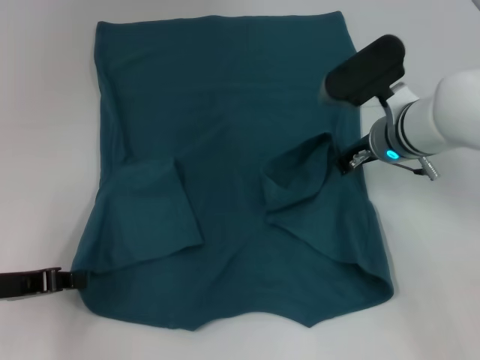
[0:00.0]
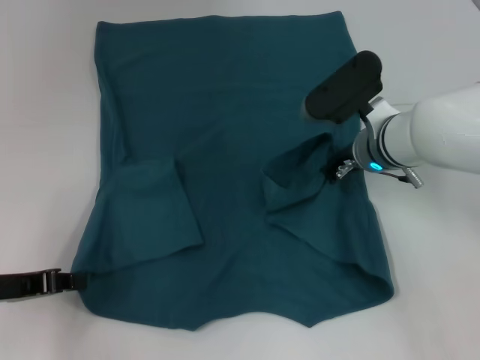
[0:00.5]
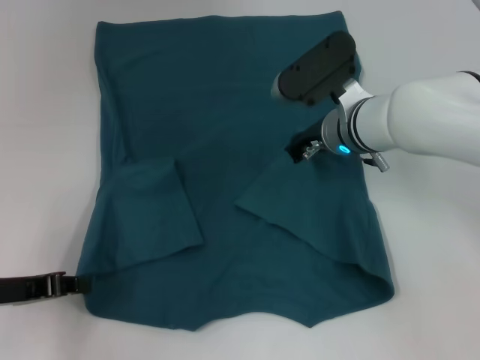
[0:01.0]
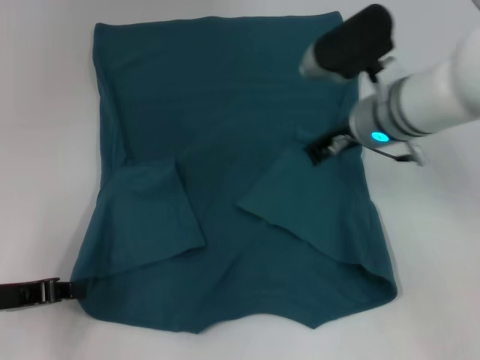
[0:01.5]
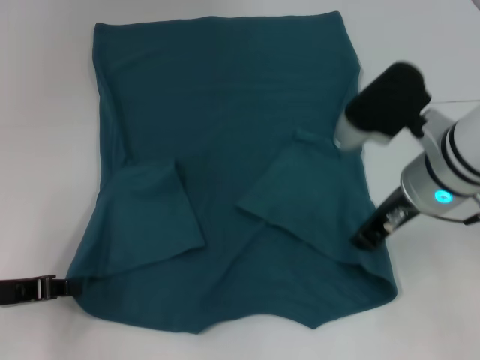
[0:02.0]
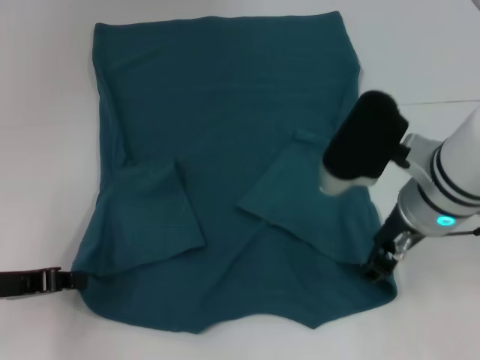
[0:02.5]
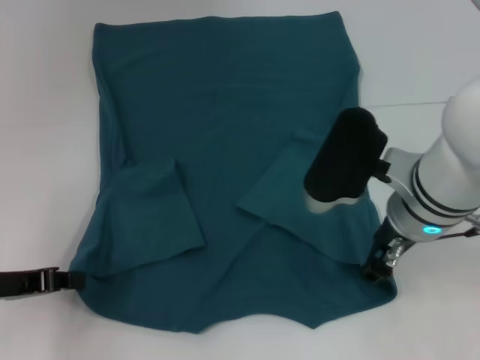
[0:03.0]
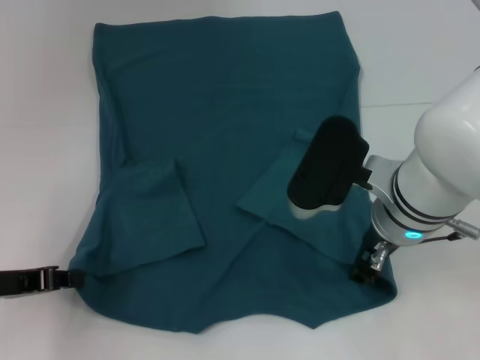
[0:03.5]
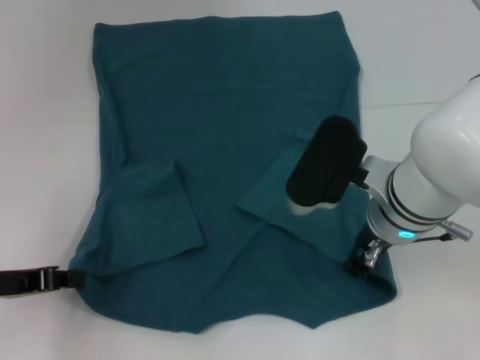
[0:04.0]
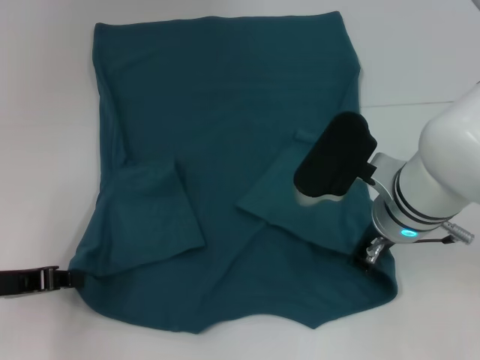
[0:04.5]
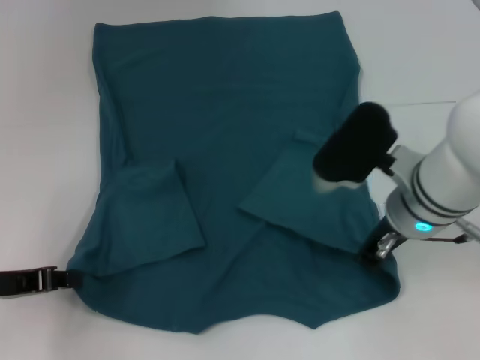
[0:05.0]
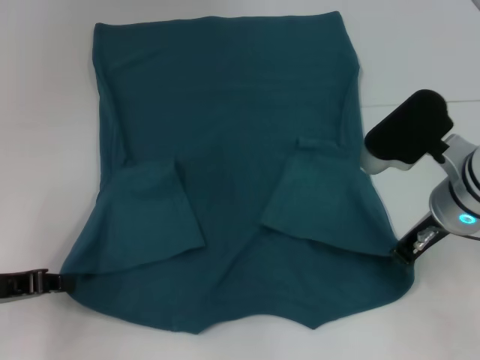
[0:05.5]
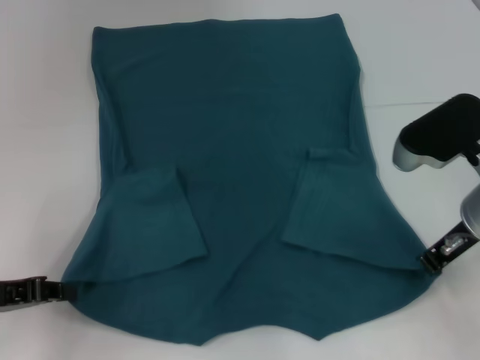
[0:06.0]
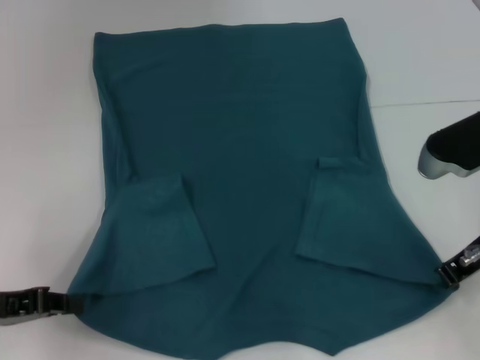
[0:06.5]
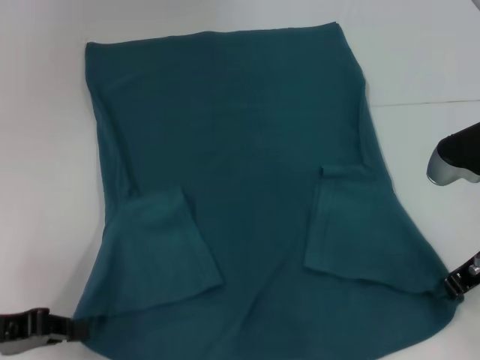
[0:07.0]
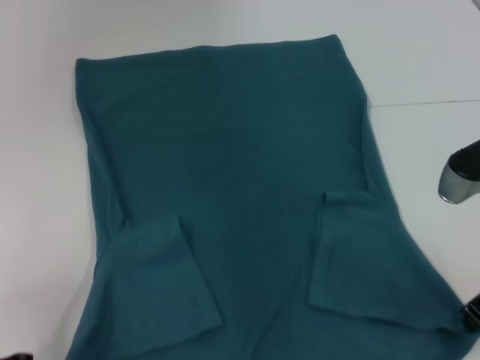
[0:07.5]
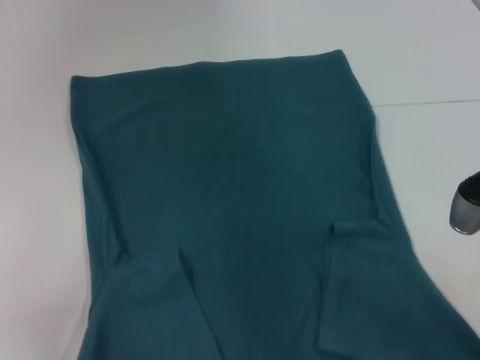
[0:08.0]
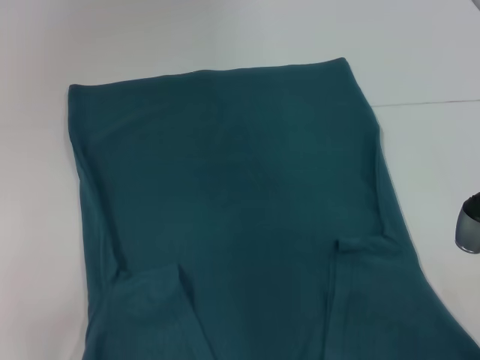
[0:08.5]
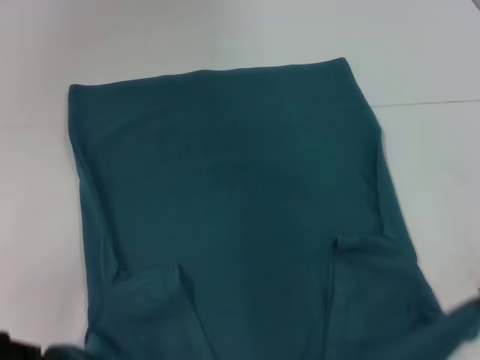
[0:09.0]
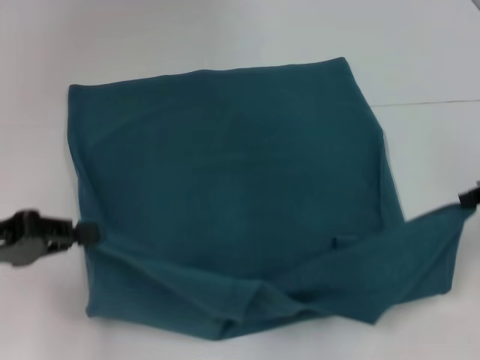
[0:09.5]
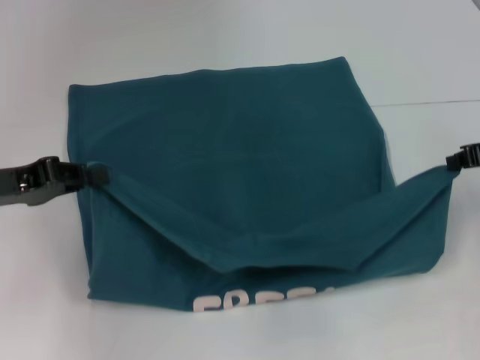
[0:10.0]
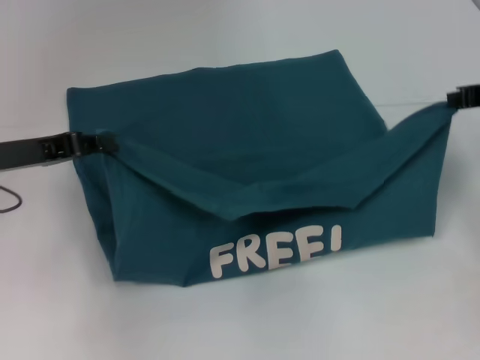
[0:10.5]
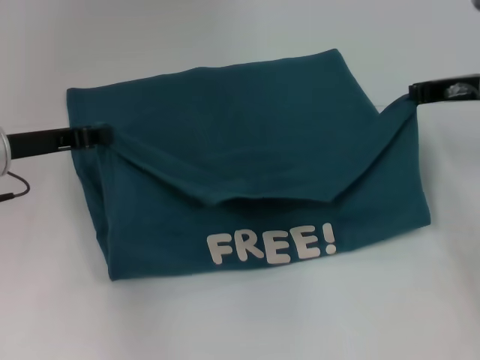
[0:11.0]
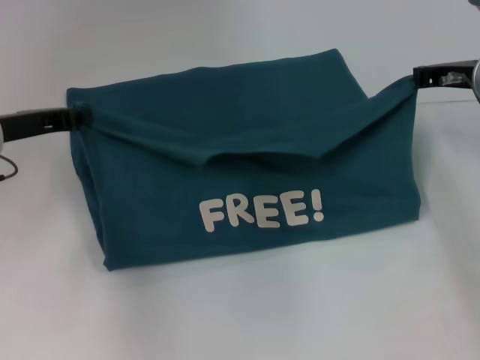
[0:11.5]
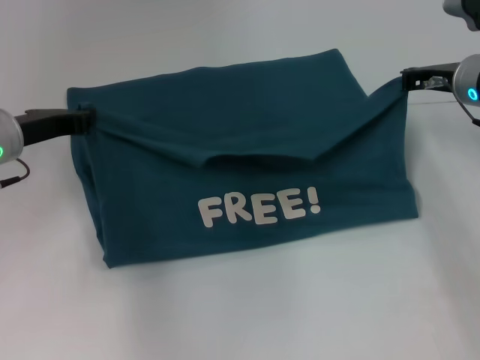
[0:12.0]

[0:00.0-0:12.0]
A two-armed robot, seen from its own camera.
Step, 0:02.0 to 0:04.5: Grab the bottom right corner with your right hand.
0:00.0 to 0:02.0: The right gripper travels backward by roughly 10 cm.
0:02.0 to 0:04.0: The right gripper ends up approximately 5 cm from where it was, and opens.
0:04.0 to 0:06.0: The right gripper goes some 10 cm to the right, and closes its fingers.
0:06.0 to 0:08.0: The grippers both shift backward by roughly 5 cm.
0:08.0 to 0:10.0: The left gripper shifts some 15 cm forward and upward. The right gripper goes roughly 10 cm forward and to the right.
0:10.0 to 0:12.0: The left gripper moves forward, approximately 10 cm, while the right gripper travels forward and to the left by roughly 10 cm.

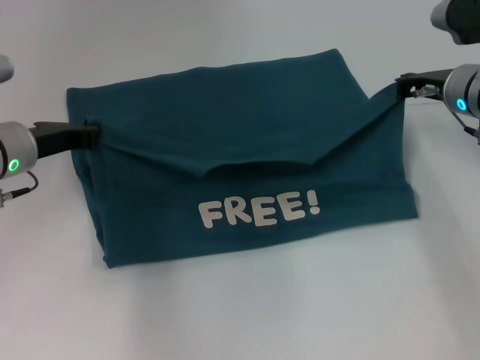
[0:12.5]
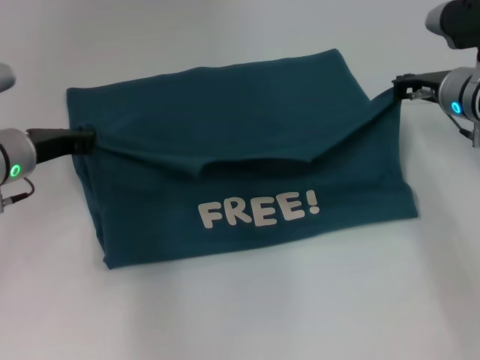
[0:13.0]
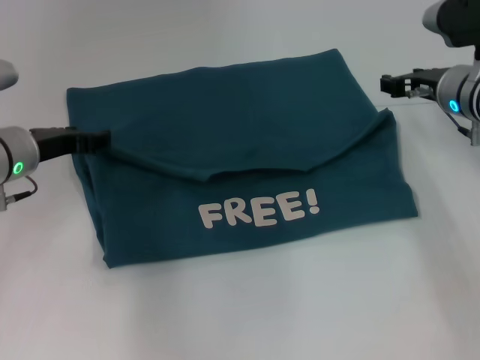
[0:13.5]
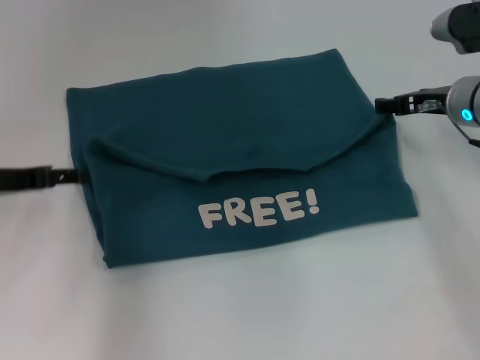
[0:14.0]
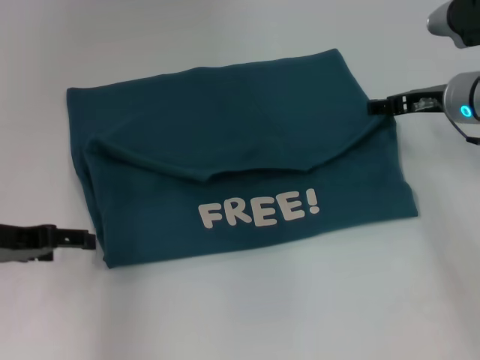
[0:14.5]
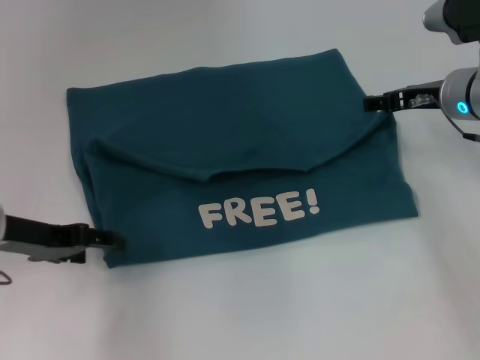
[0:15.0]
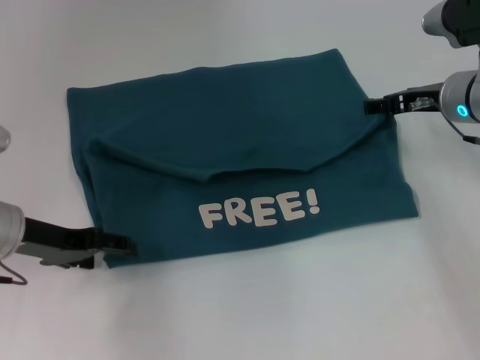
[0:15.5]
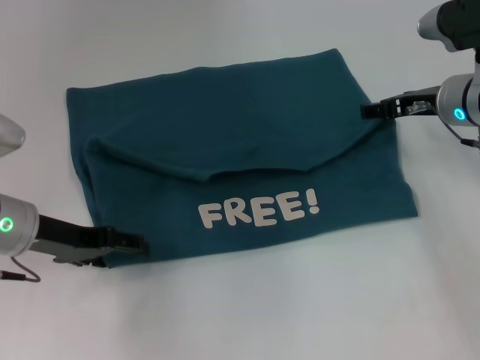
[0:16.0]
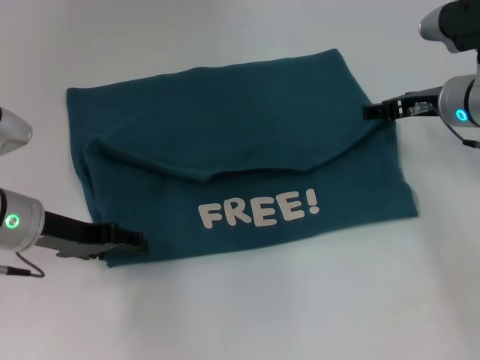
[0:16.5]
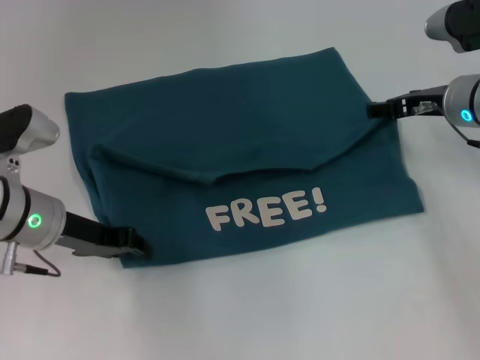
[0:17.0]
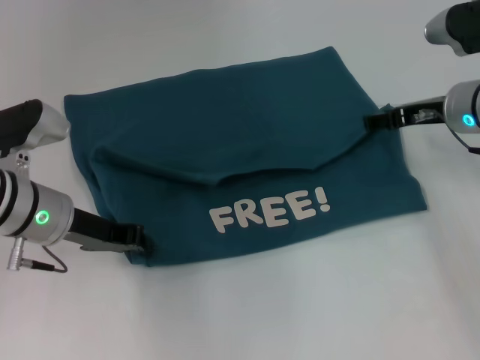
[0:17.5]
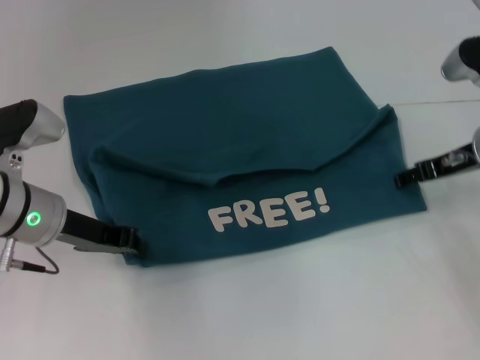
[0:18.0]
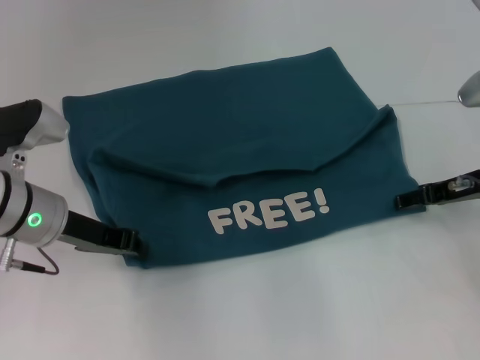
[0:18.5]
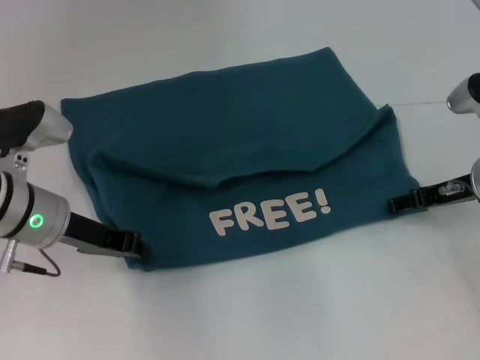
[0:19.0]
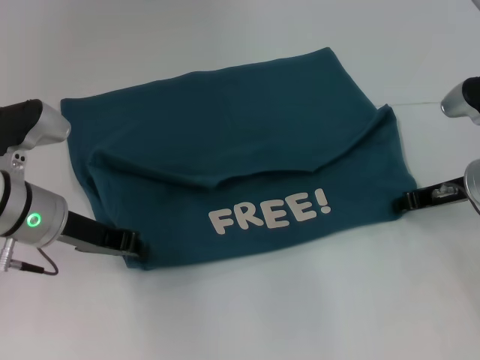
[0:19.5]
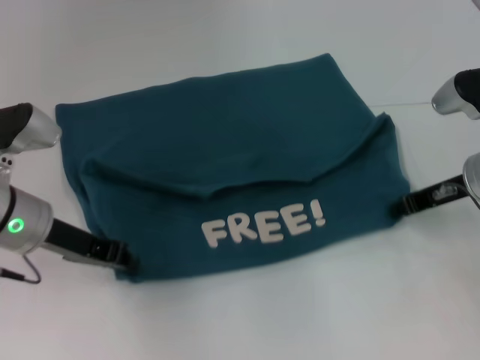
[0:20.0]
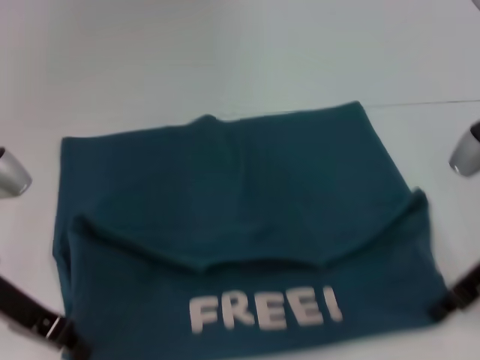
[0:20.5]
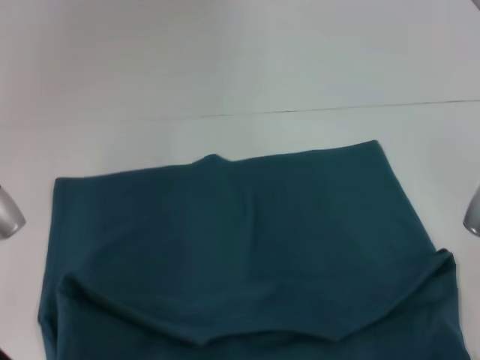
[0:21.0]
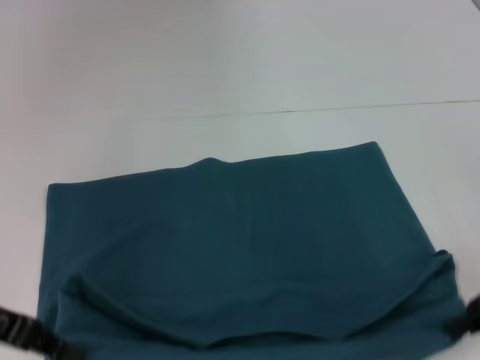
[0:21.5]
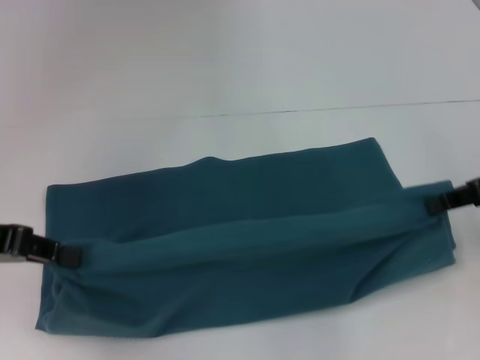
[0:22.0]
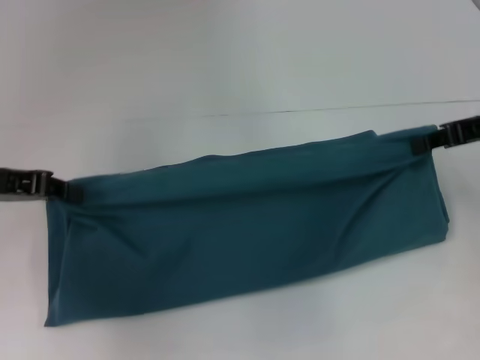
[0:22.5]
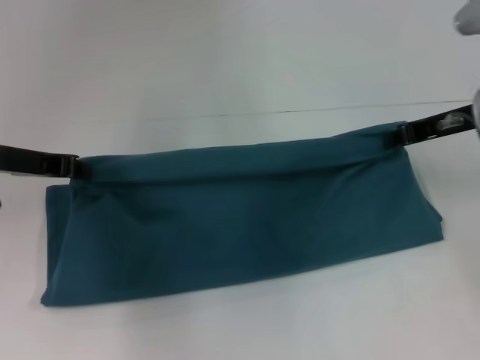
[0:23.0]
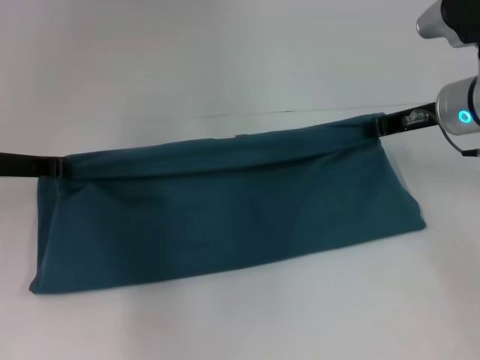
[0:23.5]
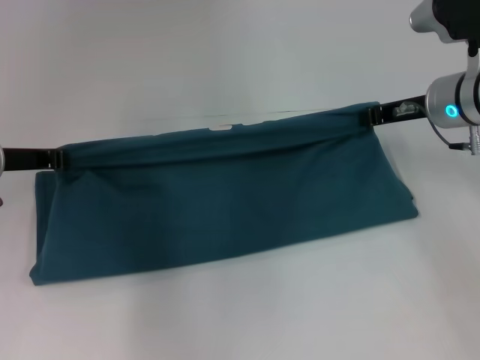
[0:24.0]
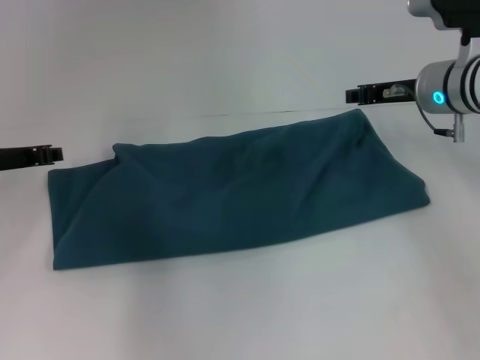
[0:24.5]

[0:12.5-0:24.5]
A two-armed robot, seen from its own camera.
Step, 0:14.0 to 0:21.0: Pull the clothes with your left hand.
Step, 0:14.0 to 0:21.0: Pull the clothes with your right hand.
0:12.5 to 0:14.5: The left gripper travels backward and to the left by approximately 10 cm, and opens up. Meanwhile the right gripper opens its fingers.
0:14.5 to 0:16.5: The left gripper is displaced to the right by roughly 5 cm.
0:16.5 to 0:18.5: The right gripper travels backward by some 5 cm. Meanwhile the left gripper closes its fingers.
0:18.5 to 0:20.5: The right gripper travels backward by some 5 cm, and closes up. The left gripper ends up about 5 cm from where it was.
0:20.5 to 0:22.5: Both grippers travel together upward, some 5 cm.
0:22.5 to 0:24.5: The right gripper moves forward, to the left and downward, some 15 cm, while the left gripper goes about 10 cm downward and forward.

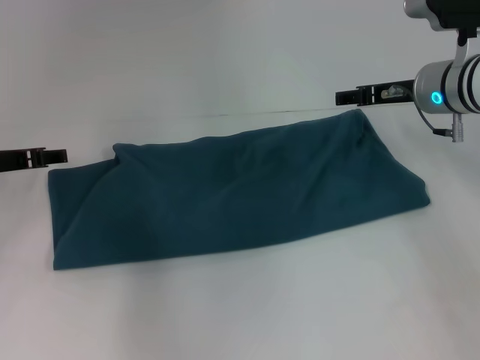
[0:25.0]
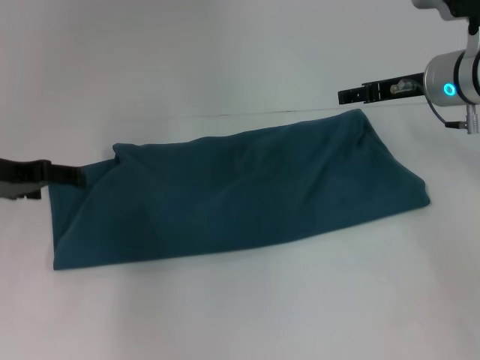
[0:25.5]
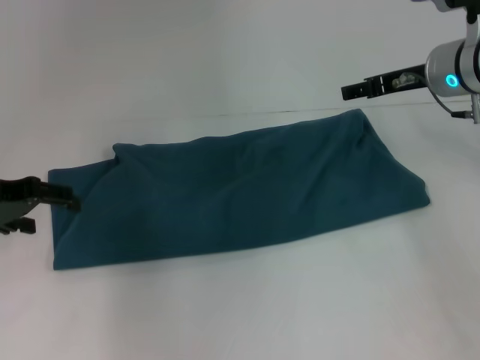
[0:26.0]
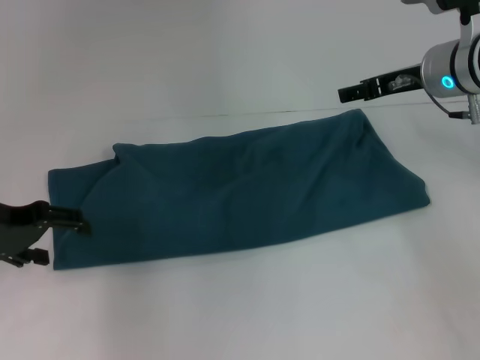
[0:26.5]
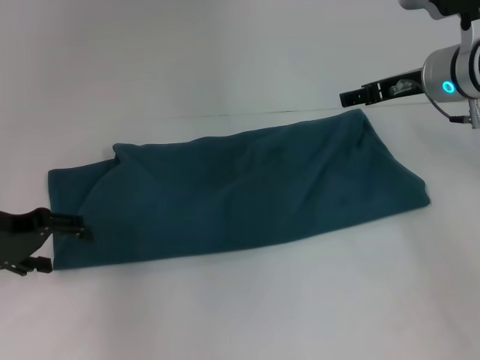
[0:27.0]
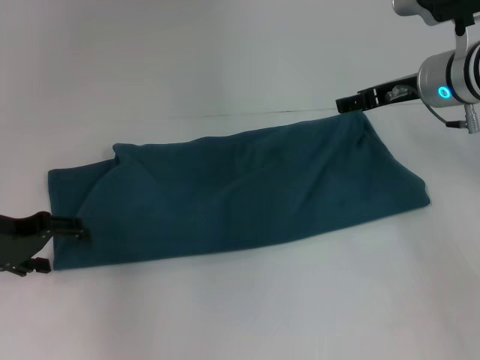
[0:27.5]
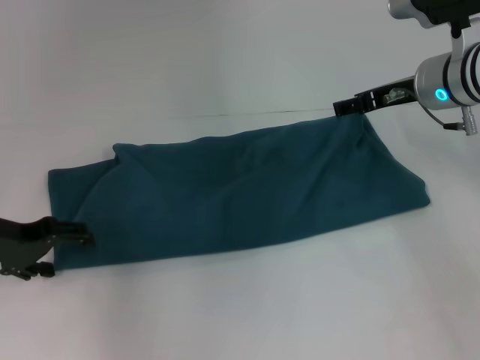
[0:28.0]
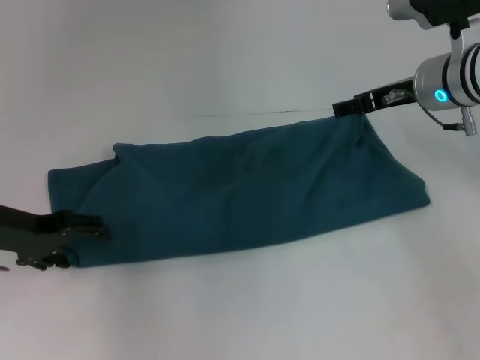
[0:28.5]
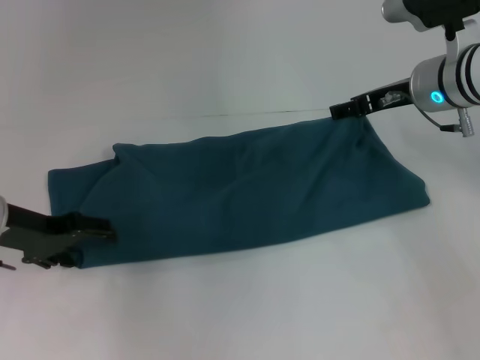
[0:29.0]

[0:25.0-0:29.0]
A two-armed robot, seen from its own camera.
0:25.0 to 0:27.0: The left gripper is displaced backward by some 5 cm, and opens its fingers.
0:27.0 to 0:29.0: There are only small adjustments of the grippers.
